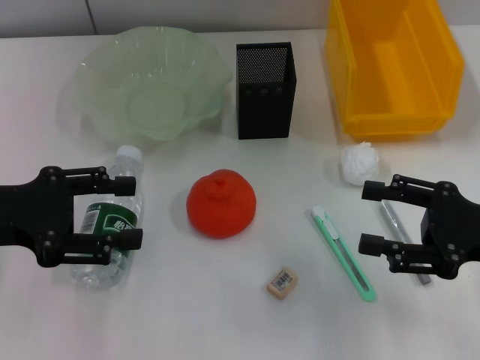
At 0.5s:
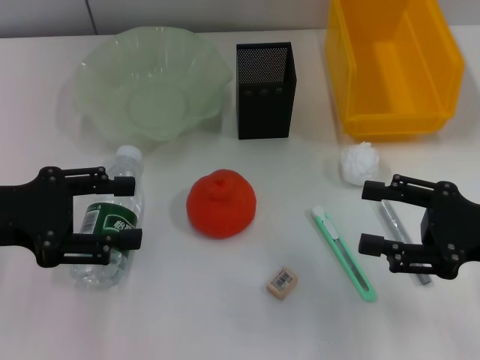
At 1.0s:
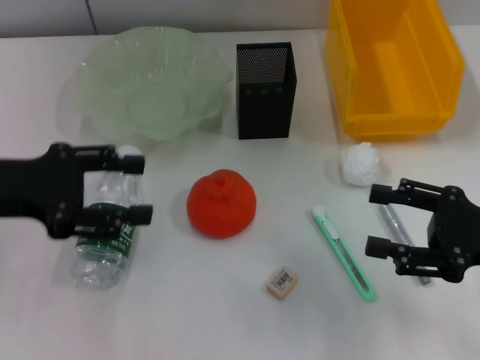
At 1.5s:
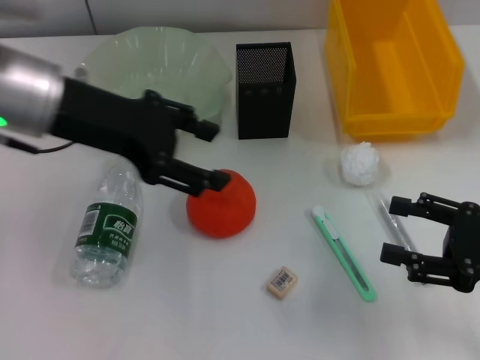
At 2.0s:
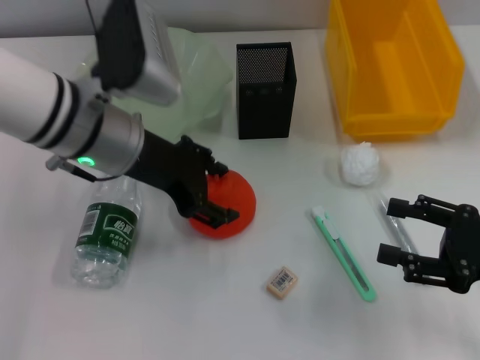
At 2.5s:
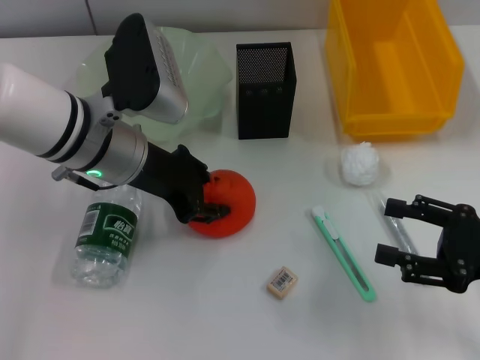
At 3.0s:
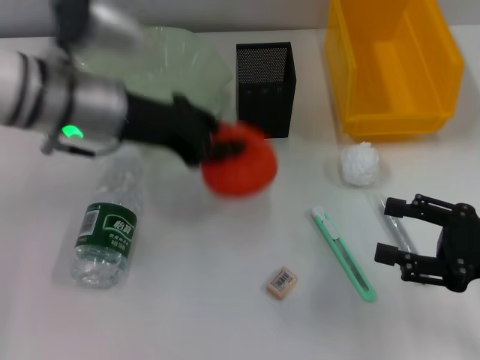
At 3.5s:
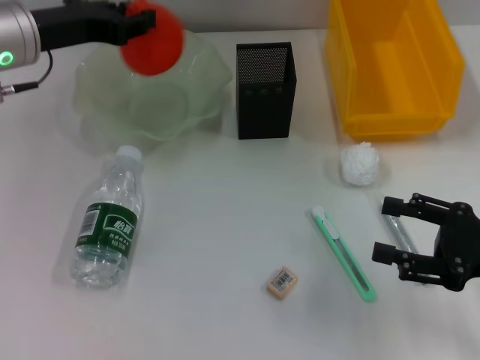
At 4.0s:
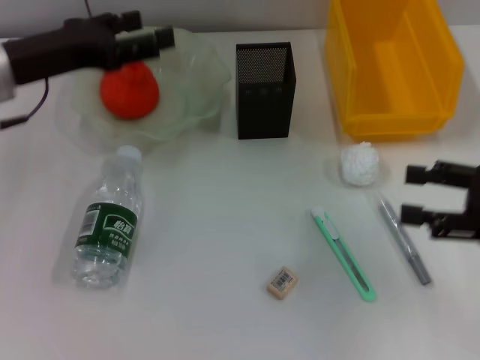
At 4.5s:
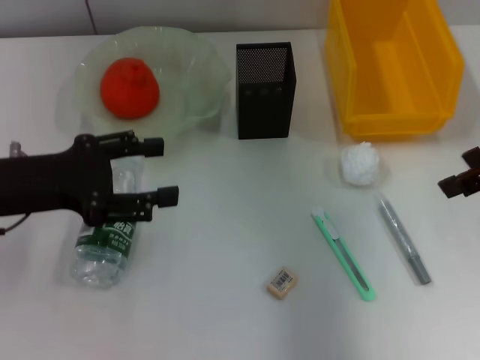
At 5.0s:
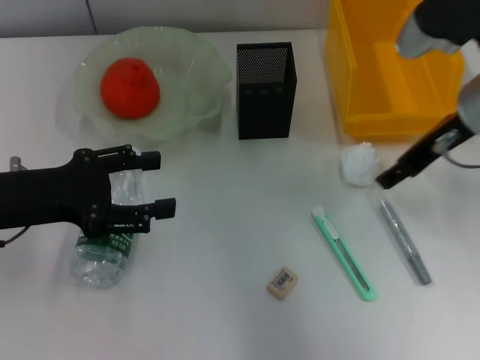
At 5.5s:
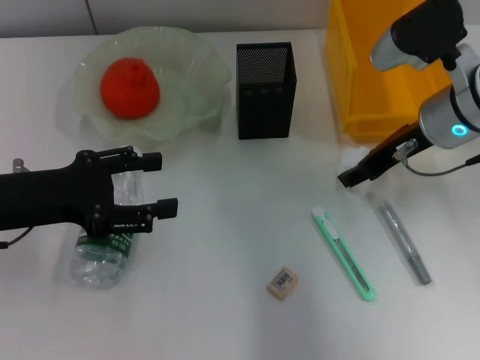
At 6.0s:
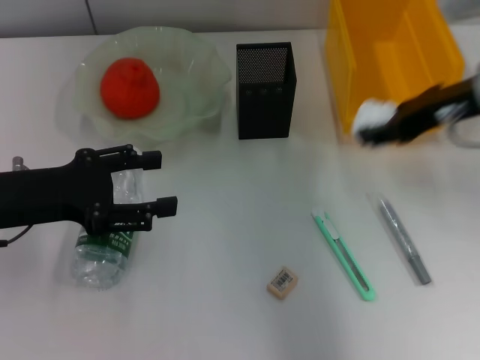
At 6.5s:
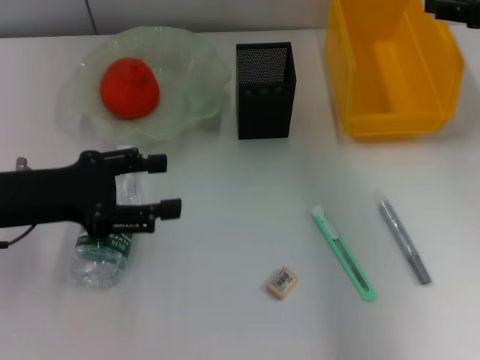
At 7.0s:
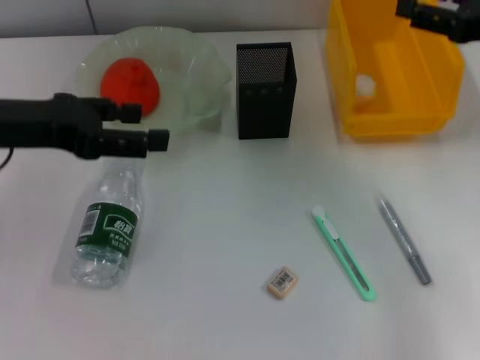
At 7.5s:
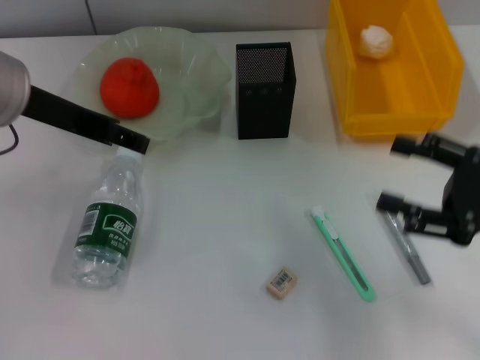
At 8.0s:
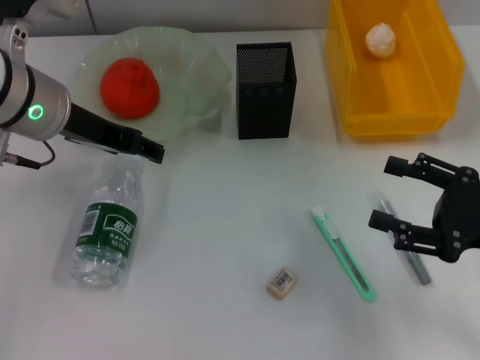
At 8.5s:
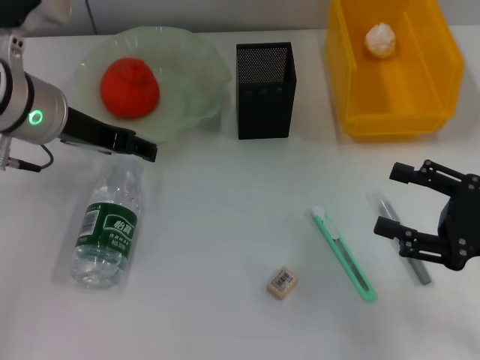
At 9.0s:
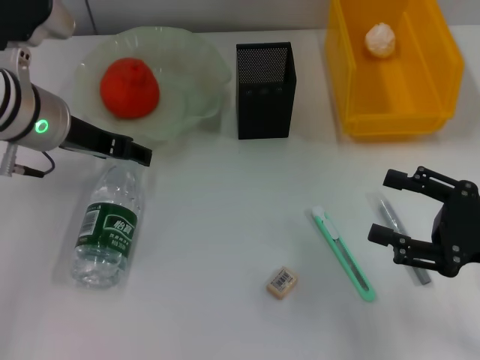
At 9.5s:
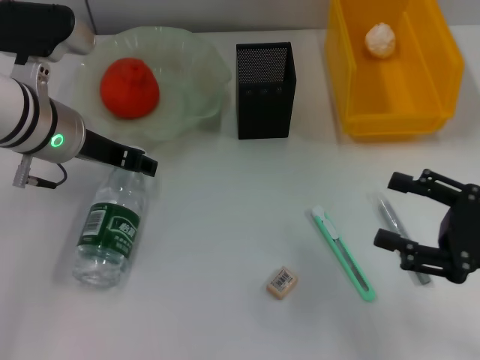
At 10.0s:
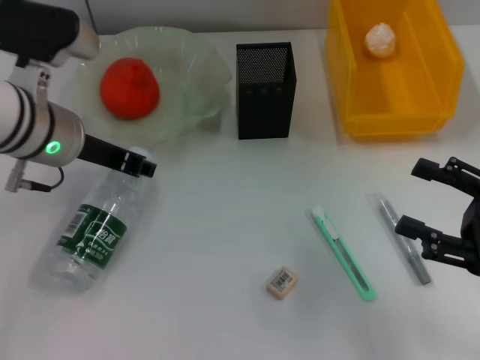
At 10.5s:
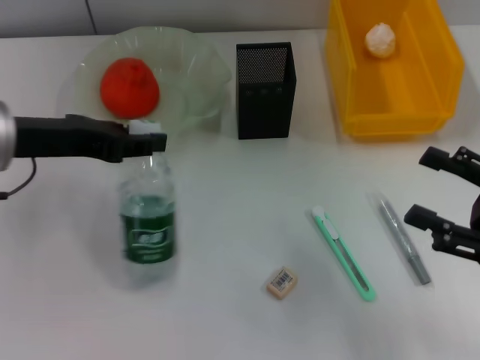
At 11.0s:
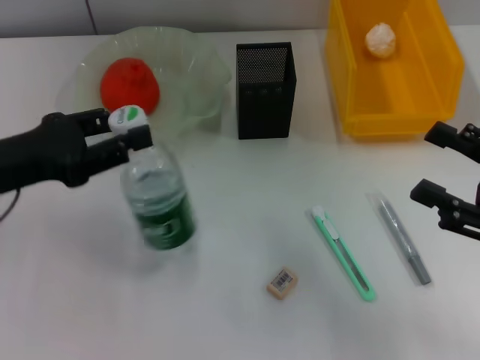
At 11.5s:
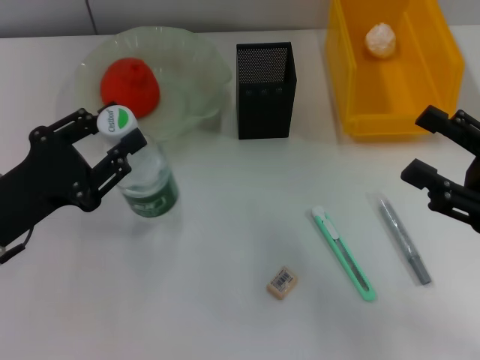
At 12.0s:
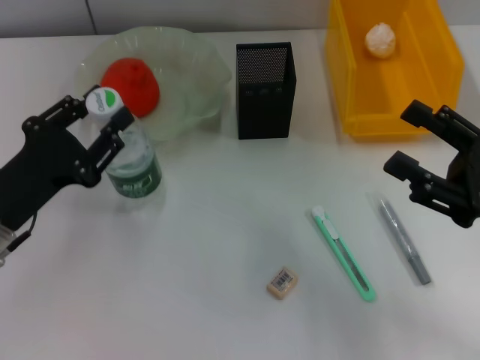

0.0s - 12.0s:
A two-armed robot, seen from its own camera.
Step, 0.0s - 2.0s: Grab the orange with the left hand.
Step, 2.5s - 3.5s: Place the orange into the fruit bowl with the left hand.
Step, 4.5s - 6.0s: Grab the paper ball with the right hand.
Step, 6.5s - 7.0s: Place the paper ball into the trash can with the right hand.
Step, 7.5s - 10.0s: Grab the water bottle with the left hand.
0.0s - 2.0s: The left gripper shifts approximately 15 cm to the right and forward.
2.0s - 4.0s: The left gripper heads to the left, covering roughly 10 cm, and closes; the right gripper is displaced upward by some 5 cm.
4.0s - 6.0s: The left gripper travels backward and downward by approximately 10 cm, and opens up, while the right gripper goes some 15 cm forward, to the left and upward, and closes its fingers.
6.0s - 8.0s: The left gripper goes roughly 15 cm to the right, forward and upward; the right gripper shifts roughly 20 cm backward, downward and to the right, and opens.
8.0s - 10.0s: The left gripper closes.
10.0s - 12.0s: The left gripper goes about 15 cm backward, downward and to the left.

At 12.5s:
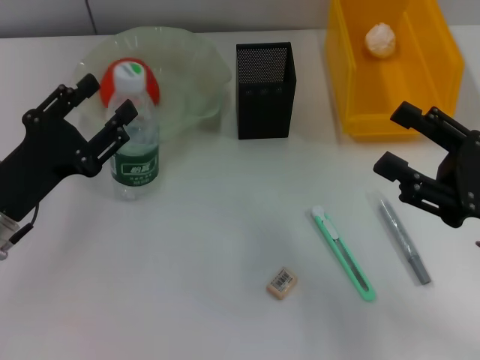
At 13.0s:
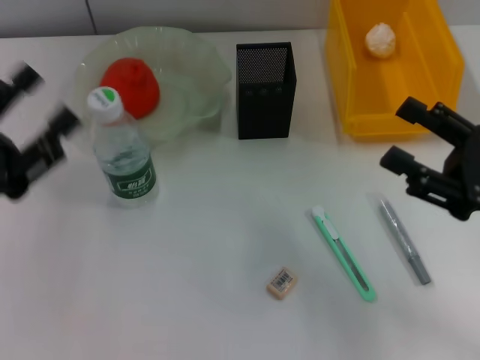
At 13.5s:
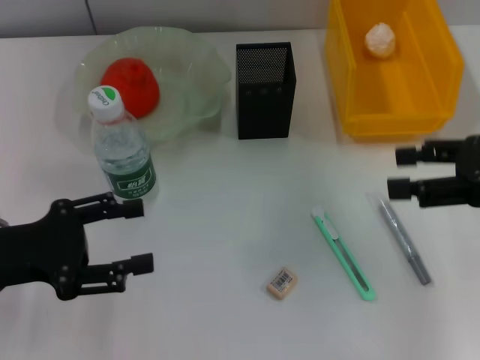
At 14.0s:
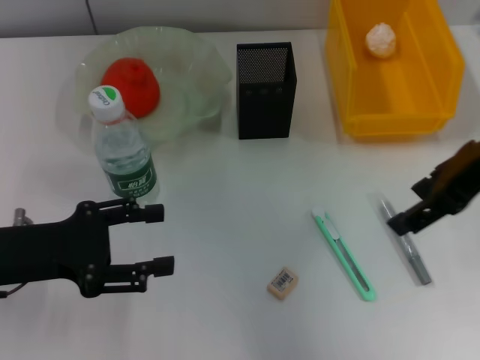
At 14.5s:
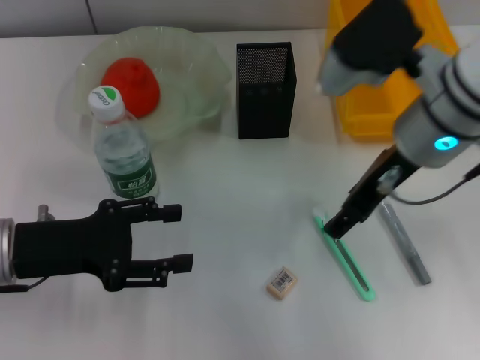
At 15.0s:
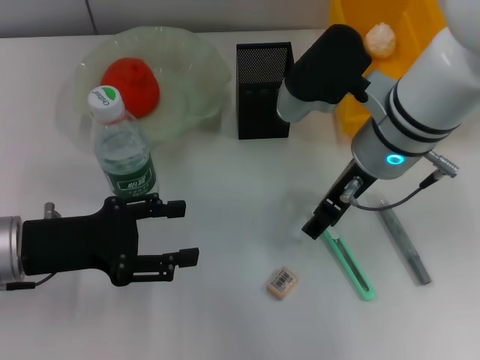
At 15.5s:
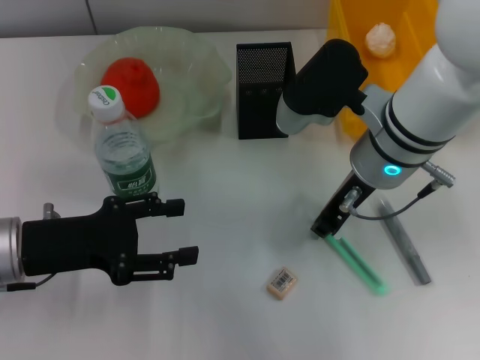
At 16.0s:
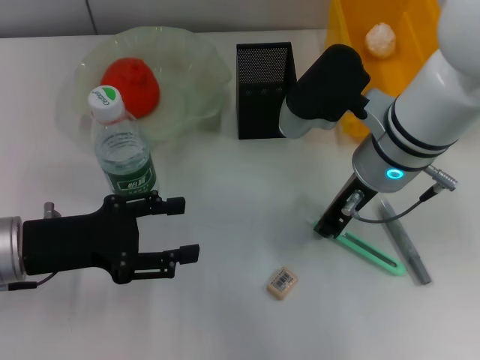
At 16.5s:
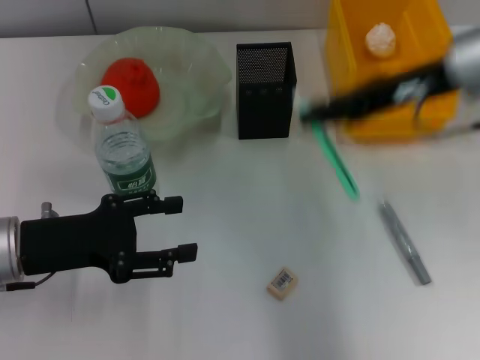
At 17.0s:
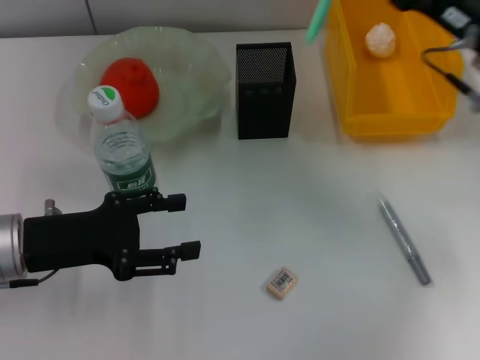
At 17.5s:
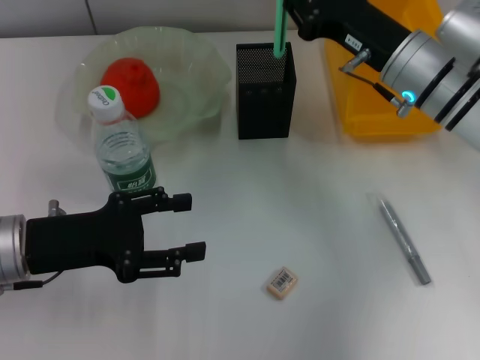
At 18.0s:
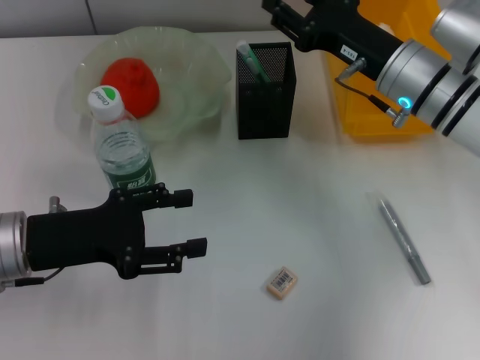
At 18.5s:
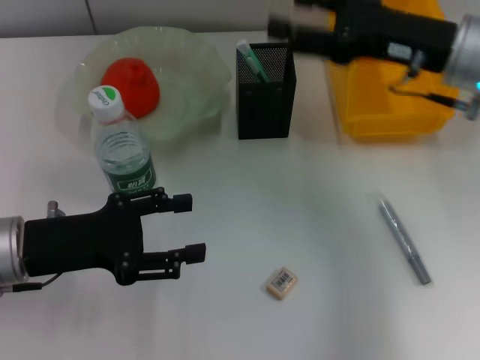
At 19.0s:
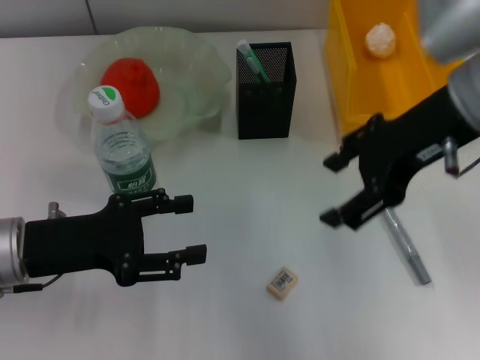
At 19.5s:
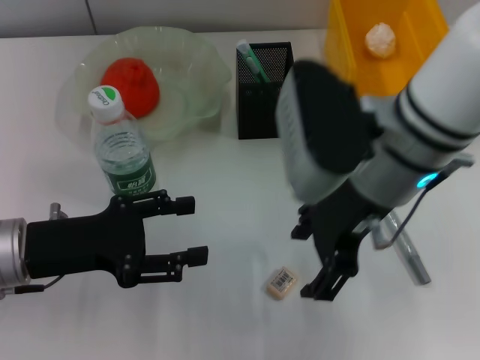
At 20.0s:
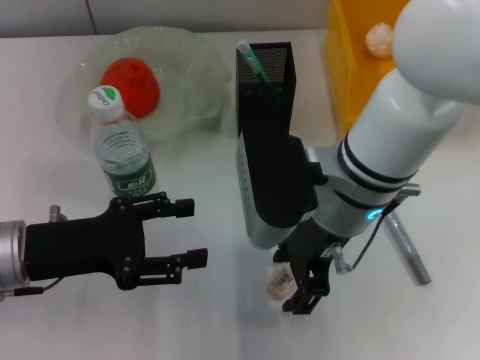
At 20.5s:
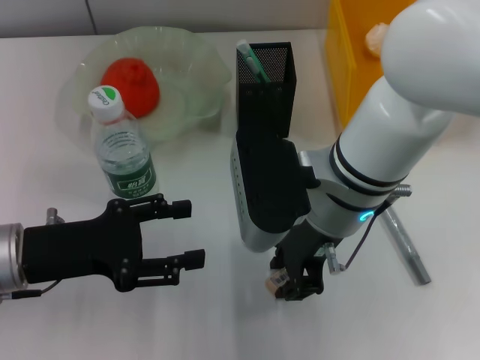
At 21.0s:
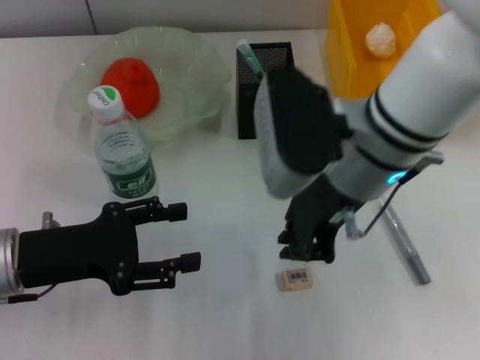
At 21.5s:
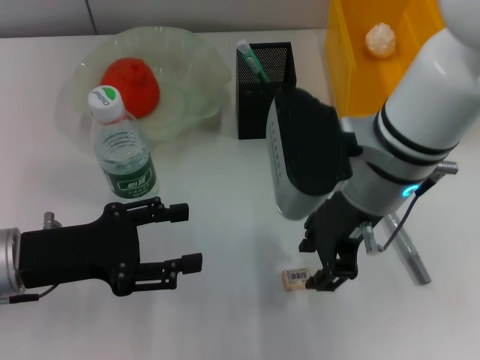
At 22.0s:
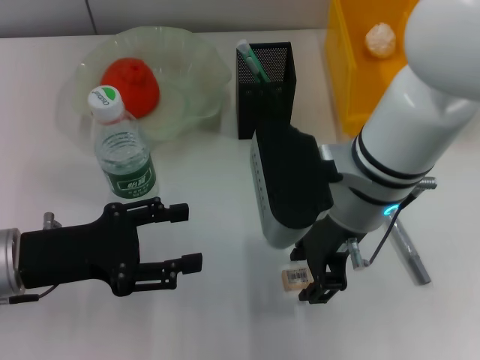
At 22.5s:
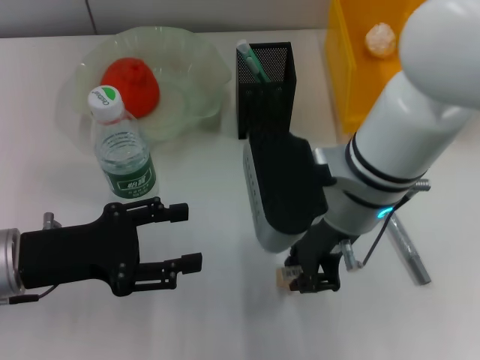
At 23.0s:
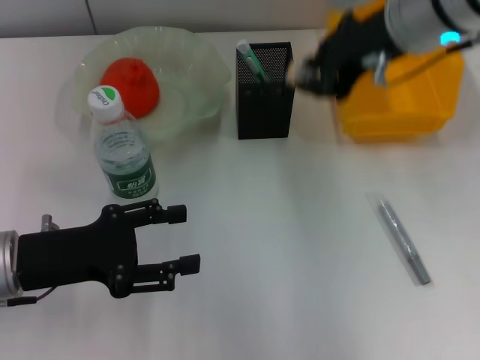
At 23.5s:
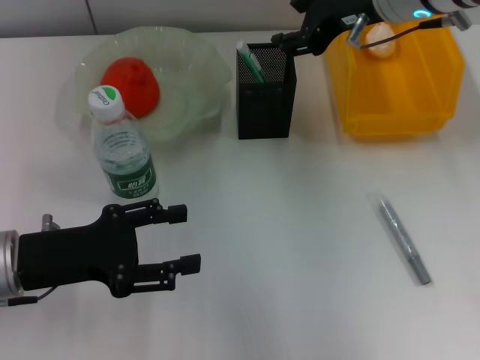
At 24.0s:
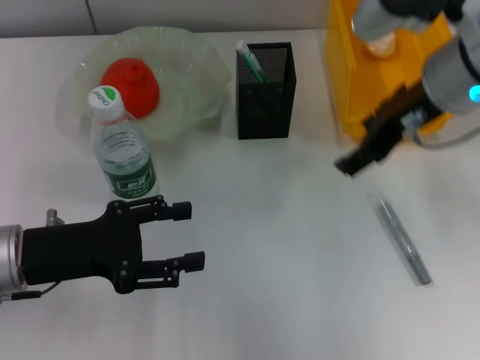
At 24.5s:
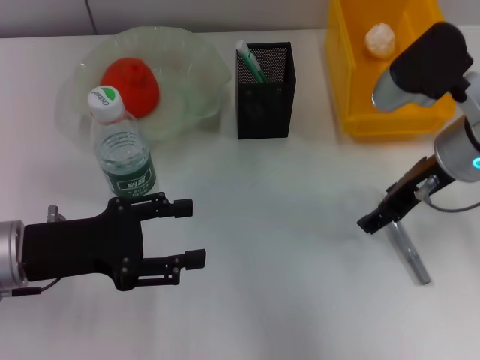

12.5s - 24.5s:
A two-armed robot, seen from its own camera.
Step, 13.0s - 16.0s: Grab the blue utility knife with the right hand.
Step, 16.5s - 18.0s: Place the blue utility knife into the pen holder with the right hand.
Step, 18.5s - 20.5s: Grab the eraser with the right hand.
Step, 21.0s - 23.5s: Put the eraser into the pen holder with the right hand.
12.5s - 14.5s: The right gripper goes about 20 cm to the left, forward and upward. Meanwhile the left gripper opens.
14.5s - 16.5s: The right gripper is displaced to the right by some 5 cm, and closes its fingers.
16.5s - 18.5s: The right gripper opens.
18.5s - 20.5s: The right gripper moves to the left, some 15 cm, and closes up.
20.5s - 22.5s: The grippers stay close to where they were, moving slightly.
22.5s - 24.5s: The right gripper shifts about 10 cm to the right, and opens its fingers.

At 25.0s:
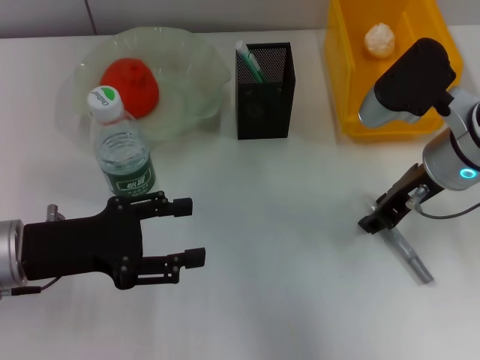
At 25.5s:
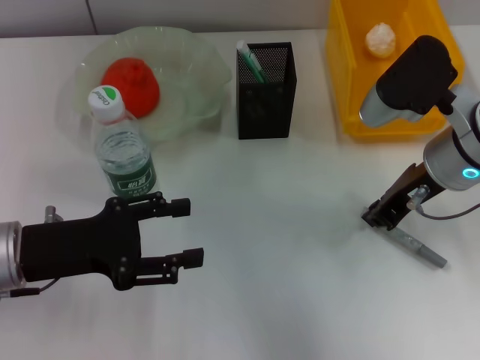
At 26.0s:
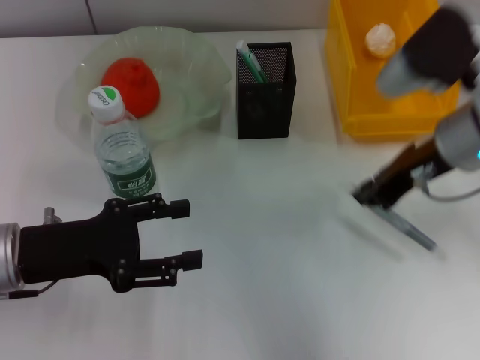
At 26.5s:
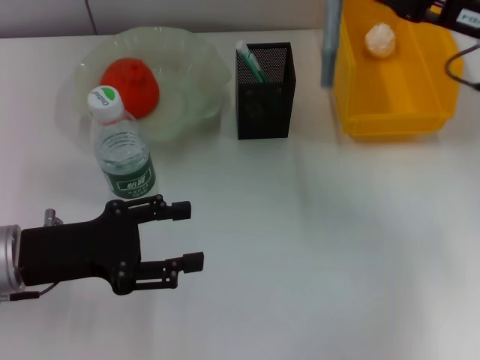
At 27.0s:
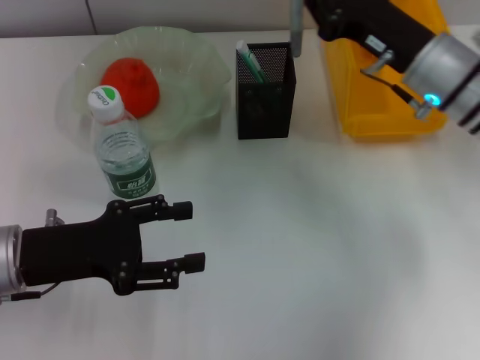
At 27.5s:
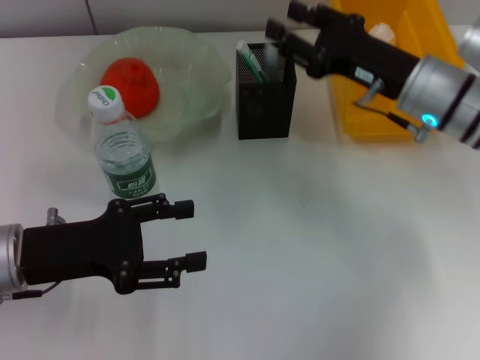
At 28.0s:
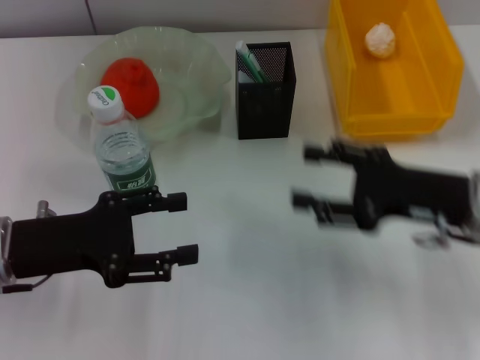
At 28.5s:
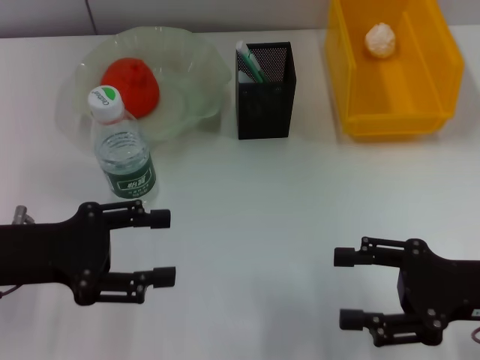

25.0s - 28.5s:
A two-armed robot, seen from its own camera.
Step, 26.0s - 27.5s: Place the gray glue into the pen holder with the right hand.
25.0s - 27.0s: The right gripper closes.
27.0s - 28.5s: The right gripper shifts approximately 20 cm backward and to the right, and opens.
